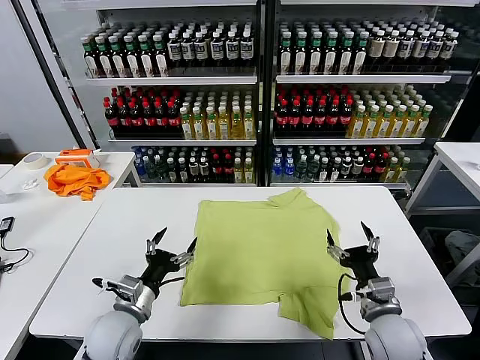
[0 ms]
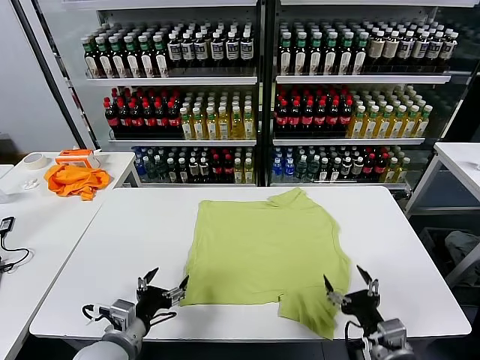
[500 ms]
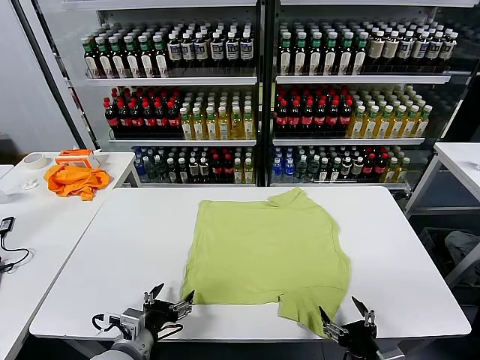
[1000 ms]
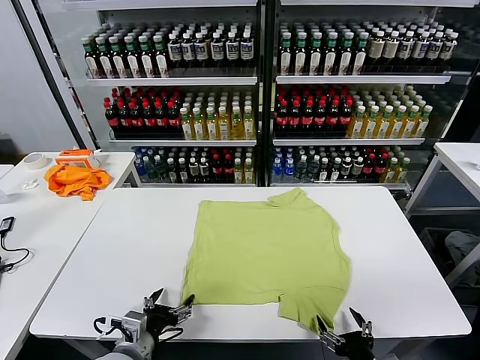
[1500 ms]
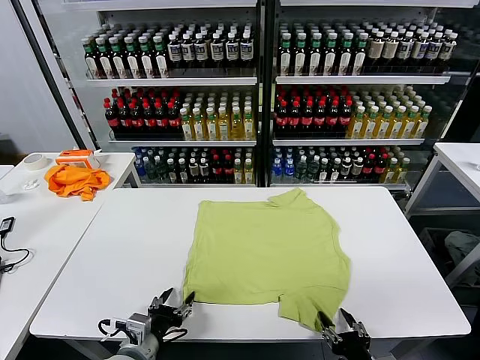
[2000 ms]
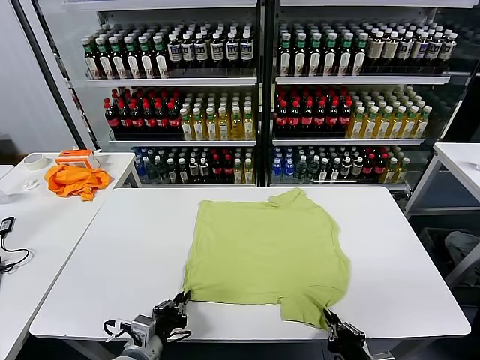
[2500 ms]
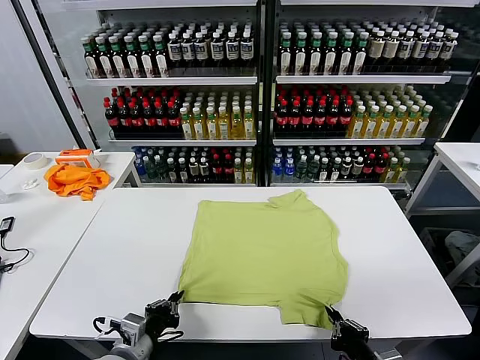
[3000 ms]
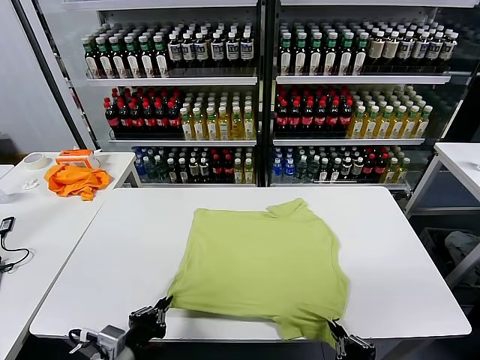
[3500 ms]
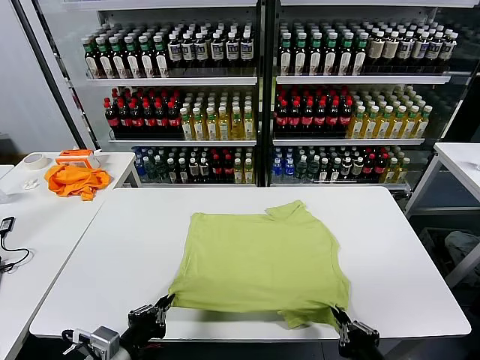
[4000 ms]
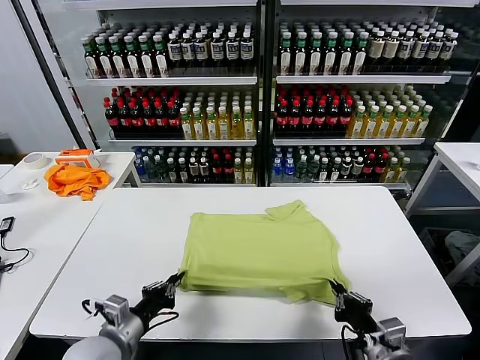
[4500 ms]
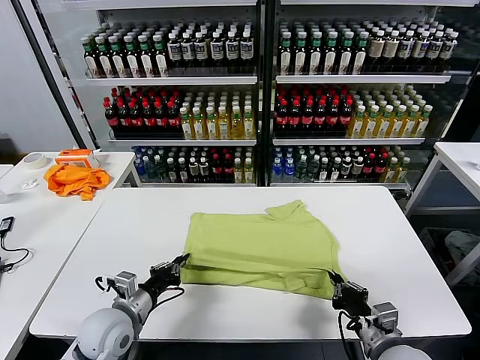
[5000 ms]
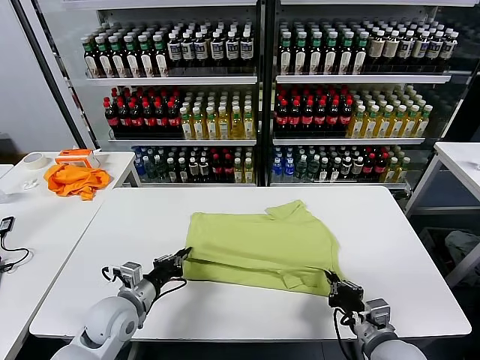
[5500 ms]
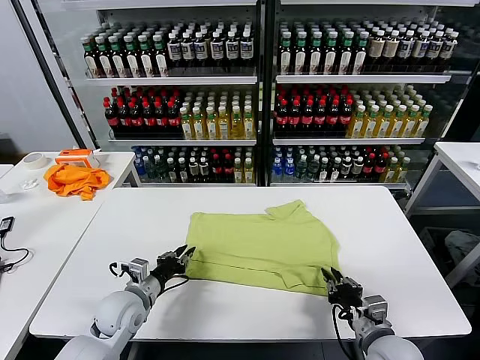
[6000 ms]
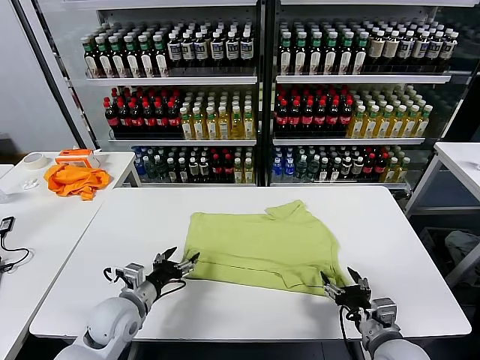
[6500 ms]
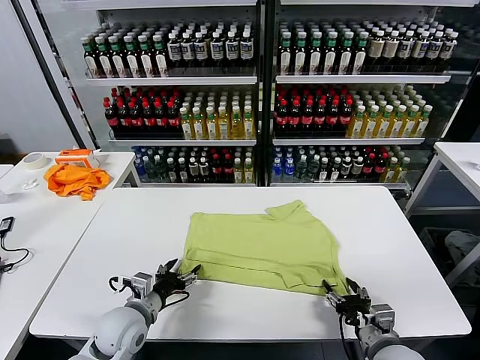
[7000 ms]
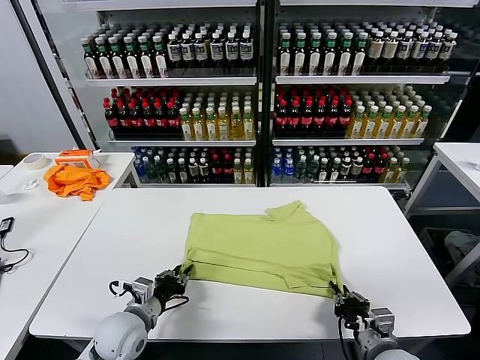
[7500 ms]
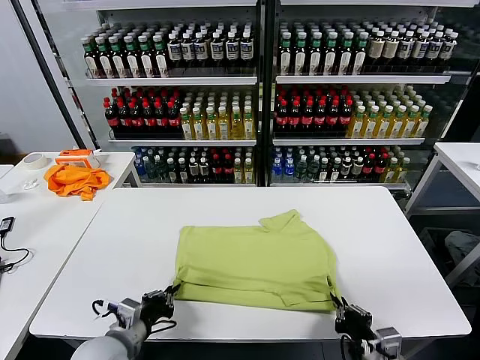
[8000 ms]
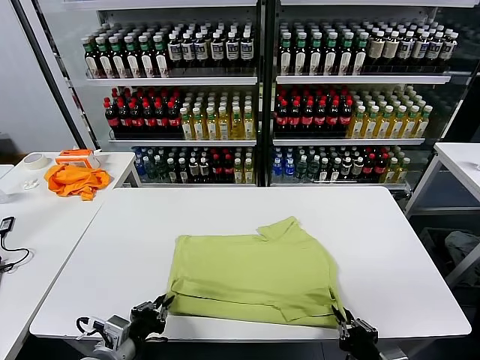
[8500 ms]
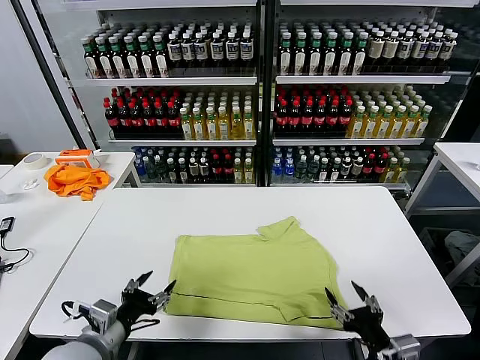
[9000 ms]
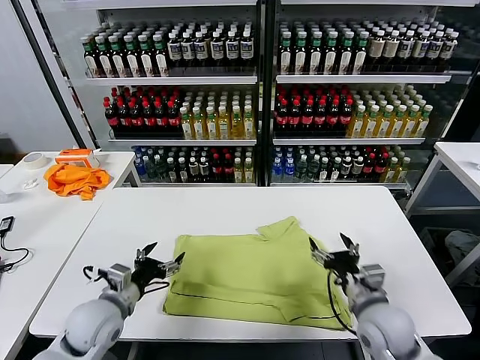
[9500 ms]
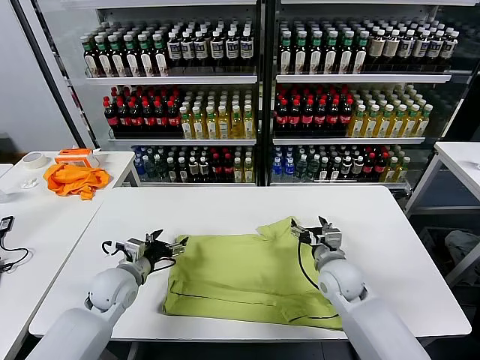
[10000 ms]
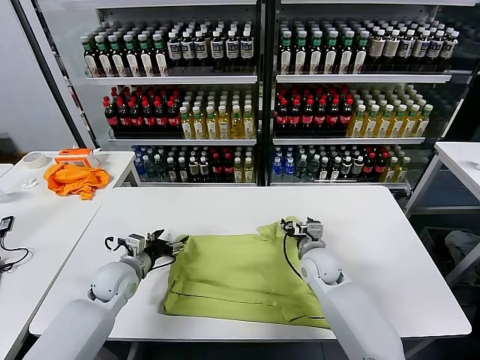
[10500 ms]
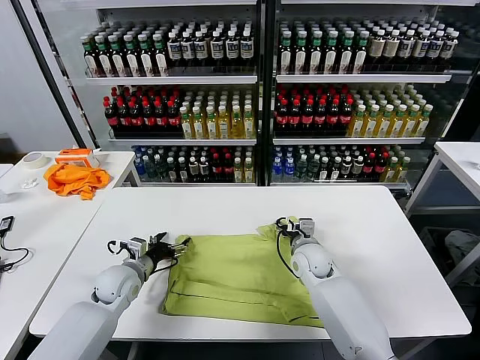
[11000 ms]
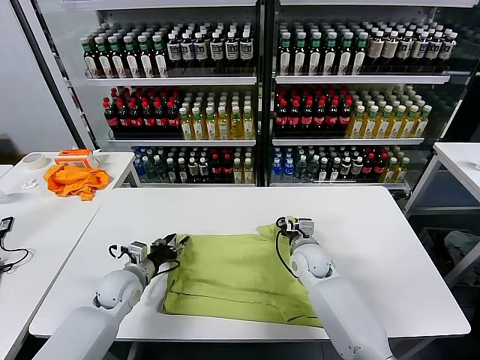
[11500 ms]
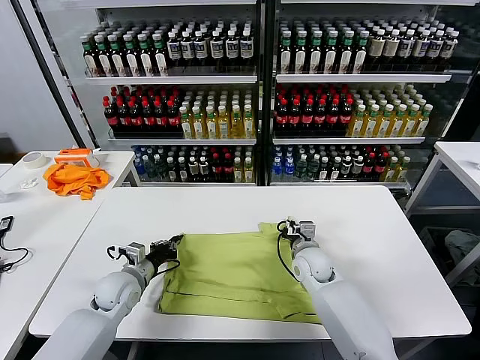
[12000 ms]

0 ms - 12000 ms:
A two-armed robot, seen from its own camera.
Task of the whole recording: fold and organize the clothes.
Step, 0 ms - 2500 ms: use both grippers simultaneously to clamp the lower edge of the clothing fabric.
Step, 3000 ms - 6000 ms: use both grippers to drag the lower edge of the fabric forward and fold it over the upper edge.
Step, 6500 ms - 8500 ms: Drag the clothes downward with both gripper.
Step, 9000 ms - 11500 ms: use both grippers simultaneously to clamp the upper edge of the clothing fabric.
2000 ms - 4000 ms: The grippers both shift upward by roughly 5 cm. The left gripper closes its fingers, while the right gripper closes.
4000 ms - 6000 ms: The left gripper travels forward and downward by approximately 20 cm; the right gripper goes some 10 cm forward, and opens its fingers.
6000 ms - 8000 ms: Both grippers move backward, approximately 10 cm. The left gripper opens and closes again. Meanwhile the right gripper closes up.
8000 ms - 10000 ms: The left gripper shifts about 15 cm forward, and opens its fingers, while the right gripper goes some 25 cm forward, and opens.
10000 ms - 12000 ms: The left gripper closes its fingers. Meanwhile the right gripper moves approximately 5 cm, and closes its fingers.

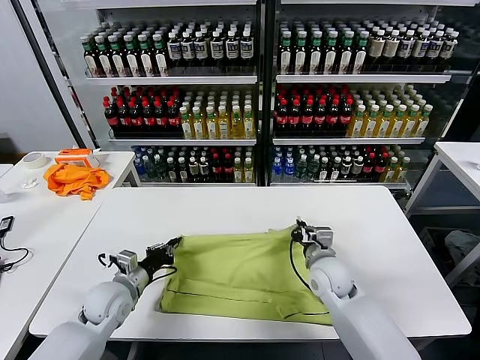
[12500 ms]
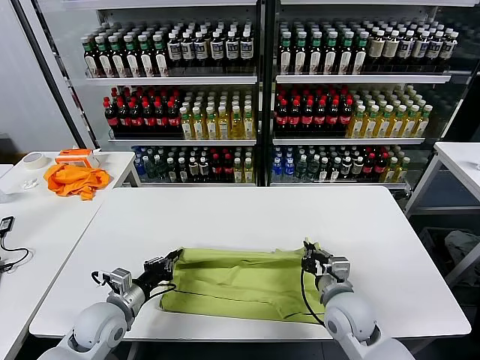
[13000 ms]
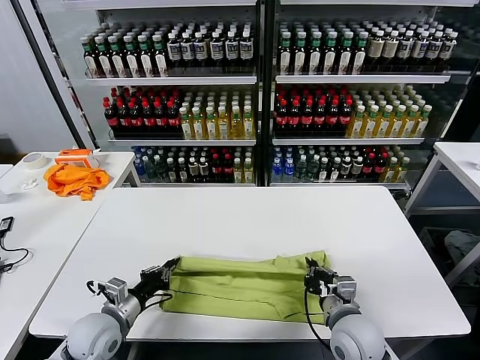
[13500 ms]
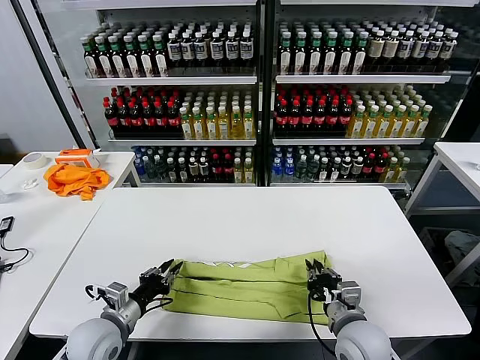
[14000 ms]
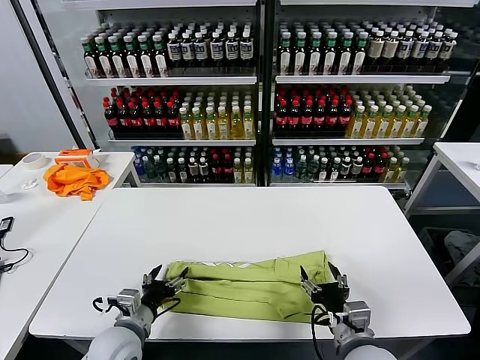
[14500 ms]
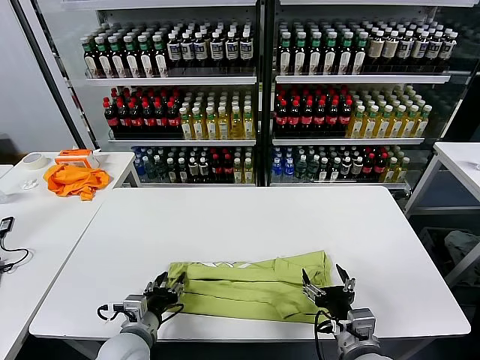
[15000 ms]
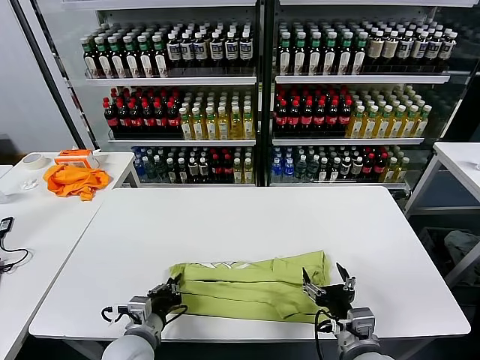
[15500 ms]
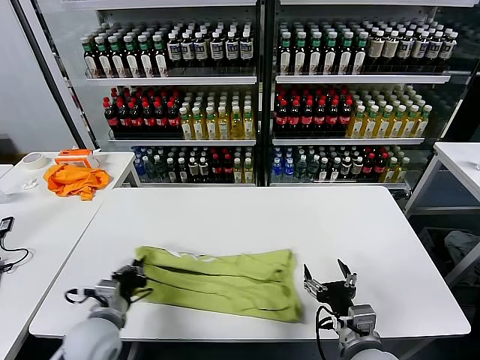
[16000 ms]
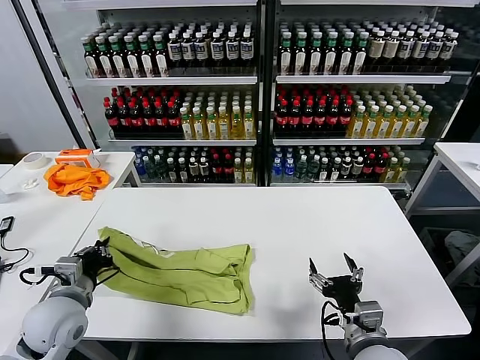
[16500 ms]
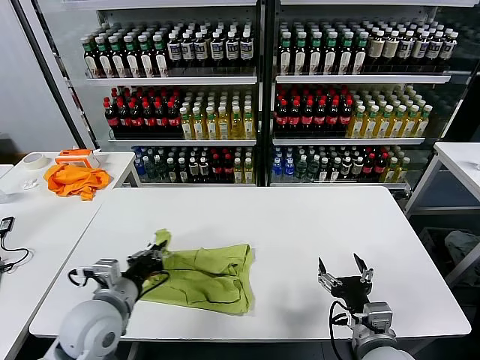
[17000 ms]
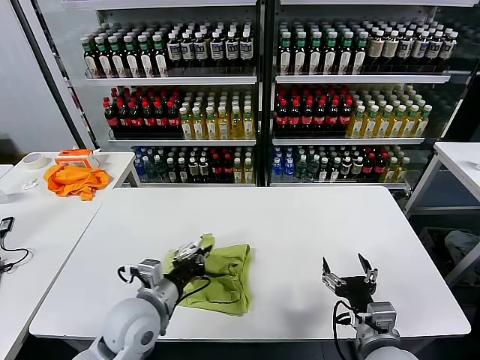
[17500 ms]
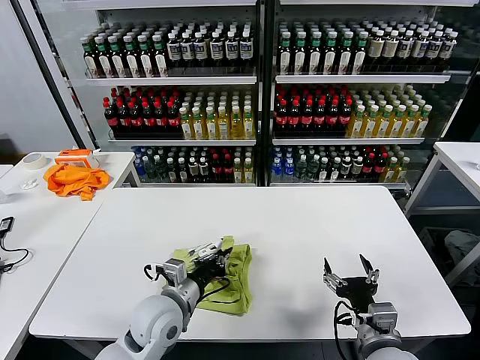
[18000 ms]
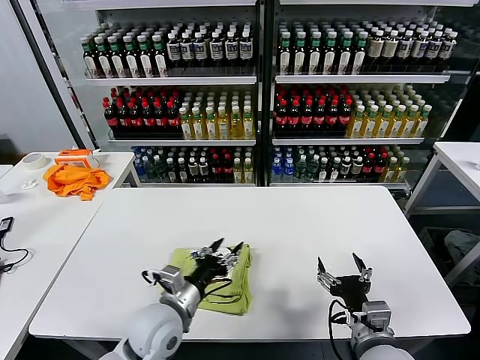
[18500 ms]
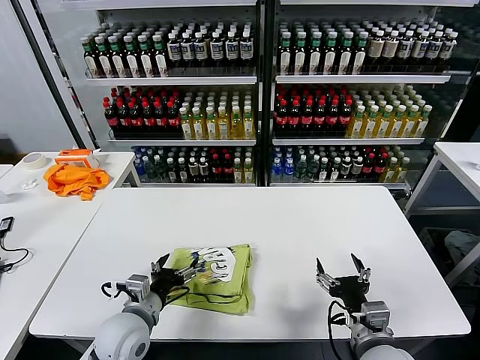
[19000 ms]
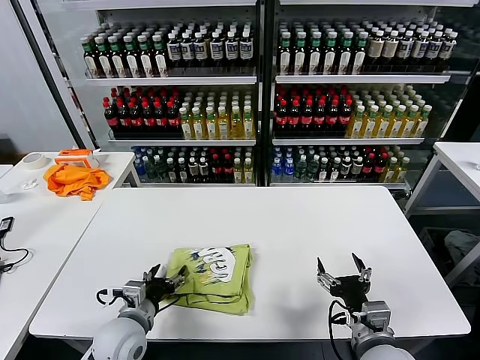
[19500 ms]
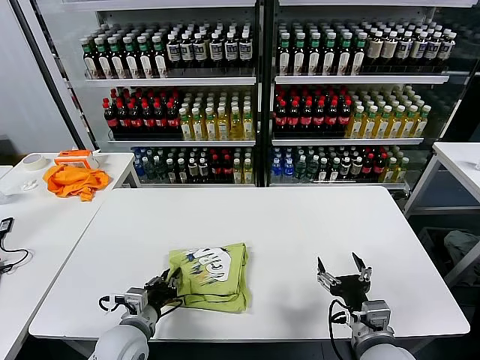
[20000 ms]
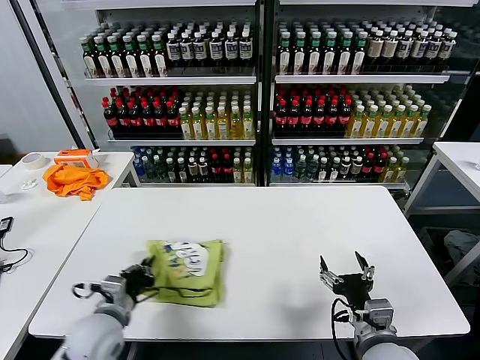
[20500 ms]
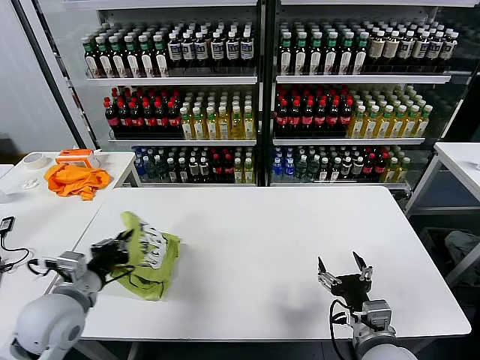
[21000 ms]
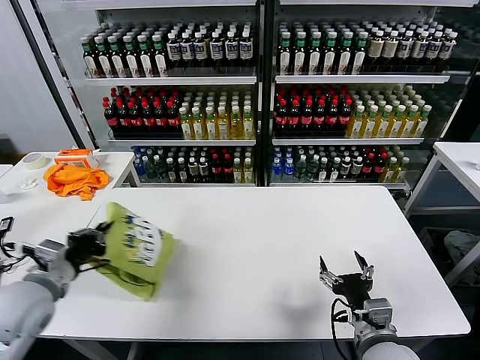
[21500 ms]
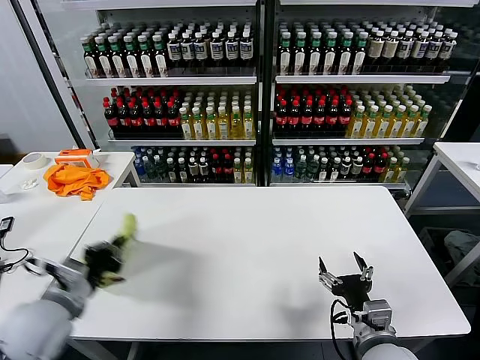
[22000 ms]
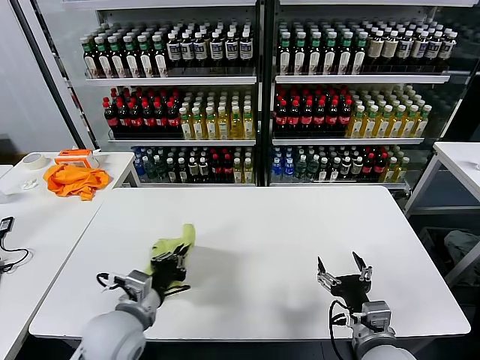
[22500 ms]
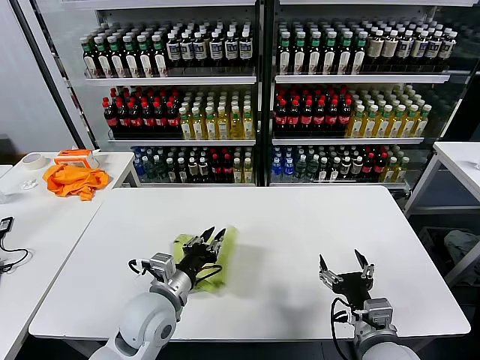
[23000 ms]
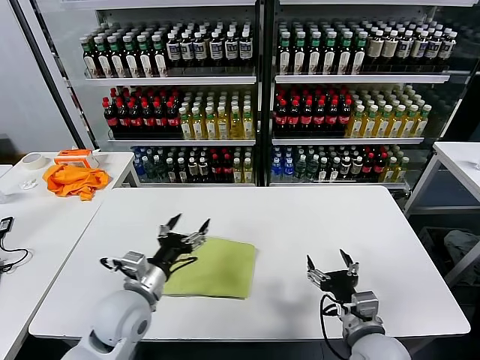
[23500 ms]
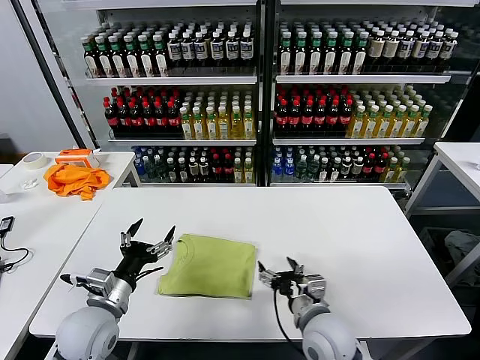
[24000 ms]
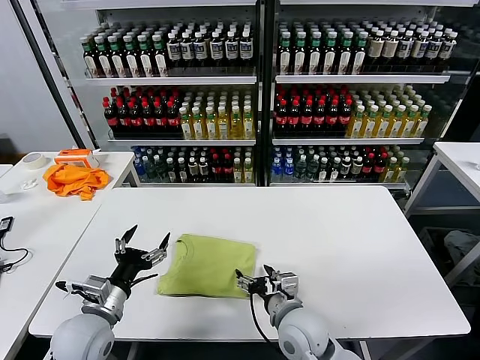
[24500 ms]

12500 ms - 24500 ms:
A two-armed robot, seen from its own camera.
Task of the whole recording: fold and organize the clothes.
Step, 12500 ms - 14000 ms: use both grippers to drag the upper edge of the fabric backward and fold it over the lower edge.
Step, 14500 ms - 15500 ms: use the left gripper to clamp the left edge of the fabric.
Step, 16000 ms - 18000 ms: use the left gripper to drag the left edge of the fabric to the left and folds it over the right edge.
Step, 18500 ms - 23000 ms: Flip the folded clothes over with left gripper.
12500 ms - 14500 ms: The right gripper shifts roughly 20 cm backward, and opens up. Meanwhile the left gripper is displaced backward and to the right by roughly 10 cm, and opens.
14500 ms - 16500 ms: The left gripper goes approximately 10 cm to the left and upward, and closes.
16500 ms - 18500 ms: The left gripper is displaced to the right by roughly 20 cm, and opens up.
18500 ms - 20500 ms: The left gripper moves to the left, some 10 cm, and closes its fingers.
20500 ms - 22500 ms: The left gripper goes about 5 cm upward, and goes to the left and returns, roughly 10 cm each way.
22500 ms - 24500 ms: The left gripper is displaced to the left by about 5 cm, and opens up. The right gripper goes some 15 cm to the left and forward.

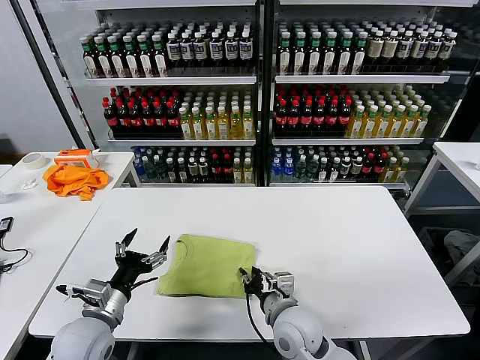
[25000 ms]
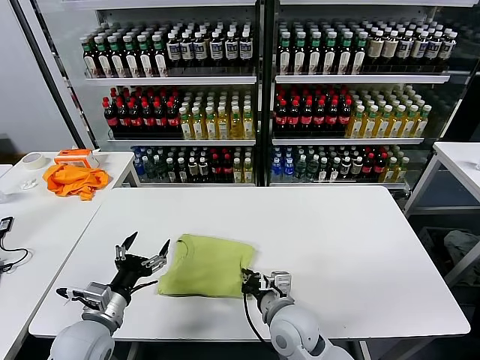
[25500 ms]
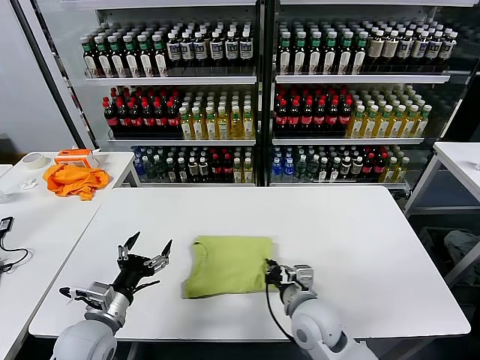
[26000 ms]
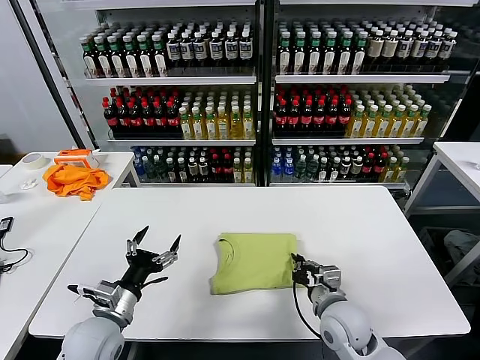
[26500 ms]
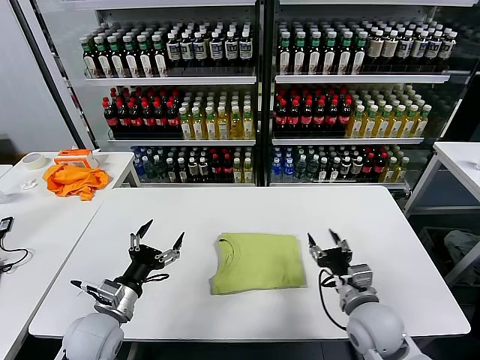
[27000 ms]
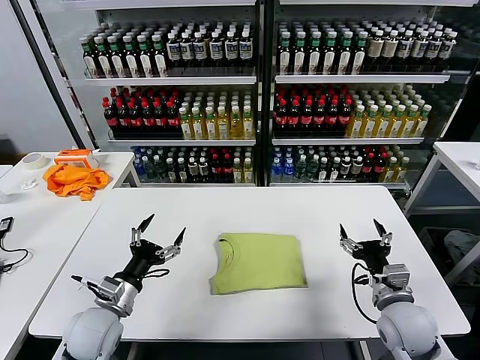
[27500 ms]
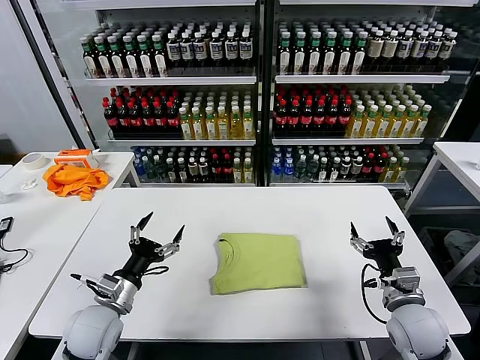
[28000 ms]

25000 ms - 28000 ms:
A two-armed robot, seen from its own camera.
Task of the whole recording: fold and organize the clothes.
25000 ms - 26500 ms: The right gripper heads to the right, covering some 10 cm, and closes its fingers.
26500 ms - 28000 ms: The right gripper shifts about 15 cm to the right, and opens its fingers.
